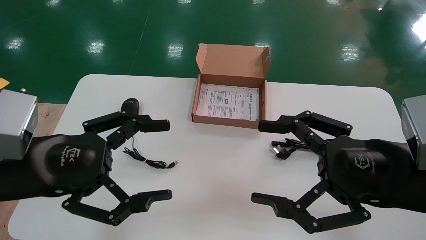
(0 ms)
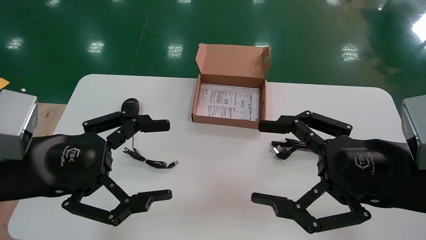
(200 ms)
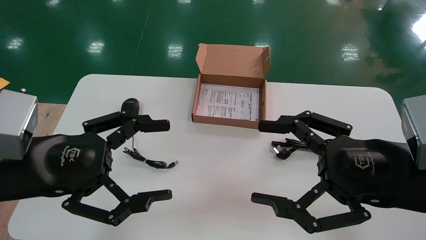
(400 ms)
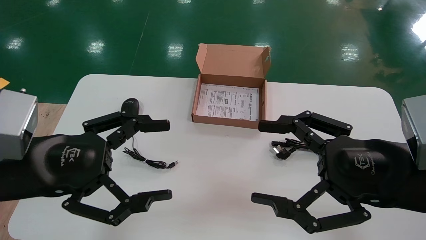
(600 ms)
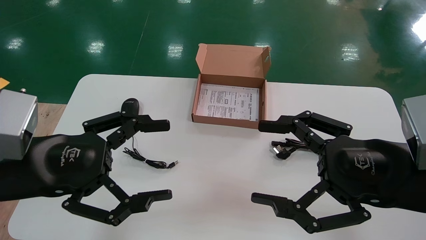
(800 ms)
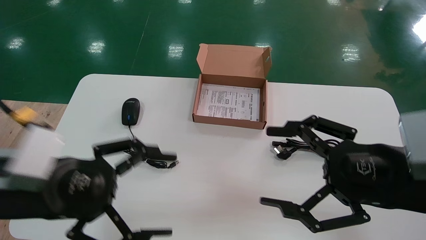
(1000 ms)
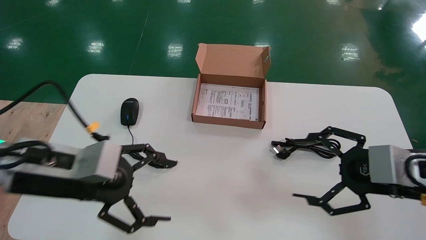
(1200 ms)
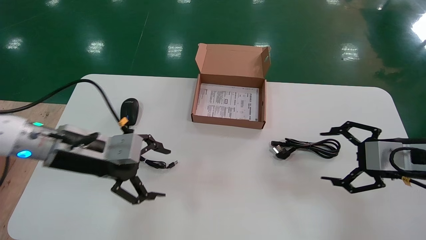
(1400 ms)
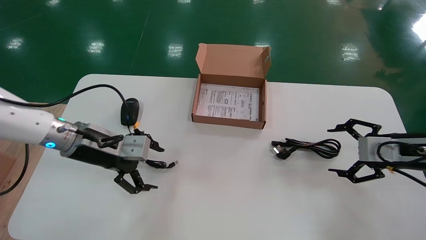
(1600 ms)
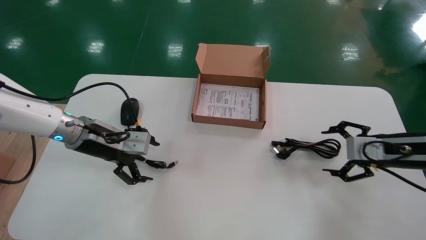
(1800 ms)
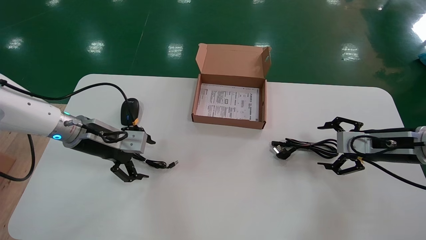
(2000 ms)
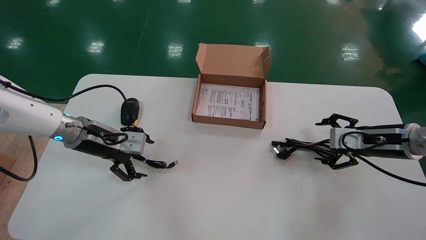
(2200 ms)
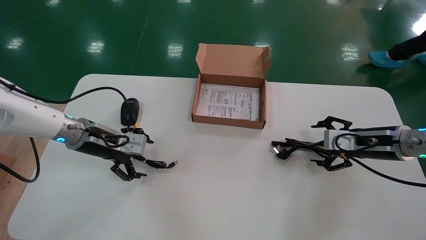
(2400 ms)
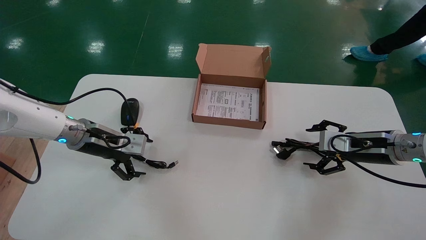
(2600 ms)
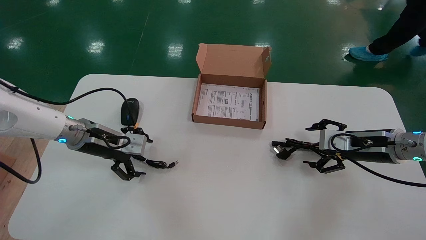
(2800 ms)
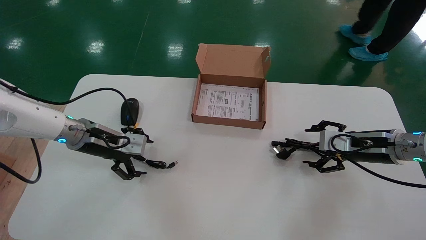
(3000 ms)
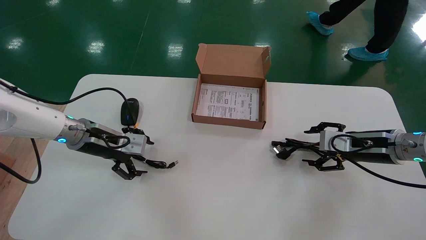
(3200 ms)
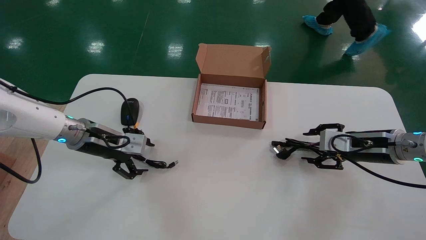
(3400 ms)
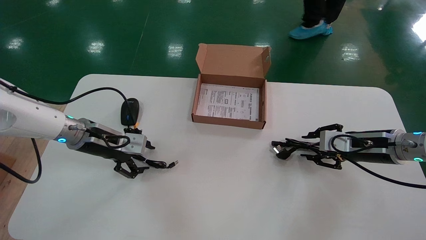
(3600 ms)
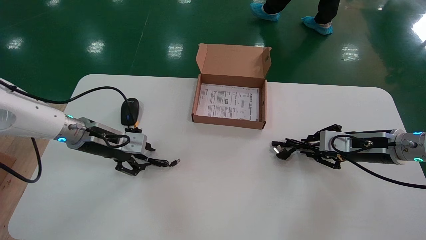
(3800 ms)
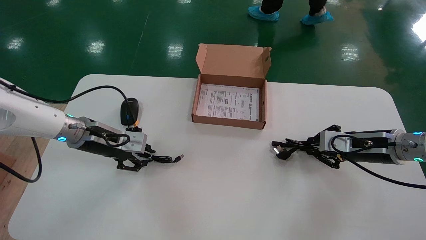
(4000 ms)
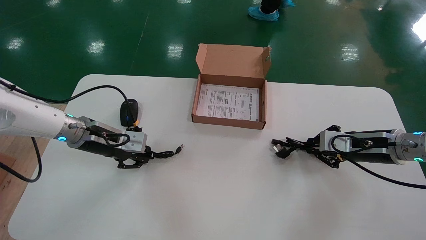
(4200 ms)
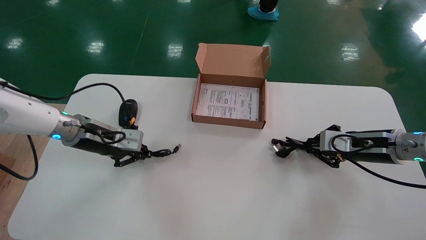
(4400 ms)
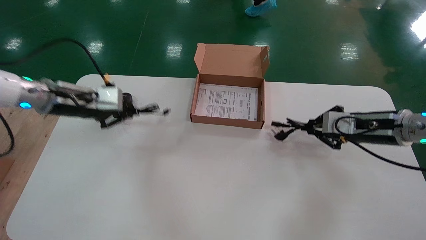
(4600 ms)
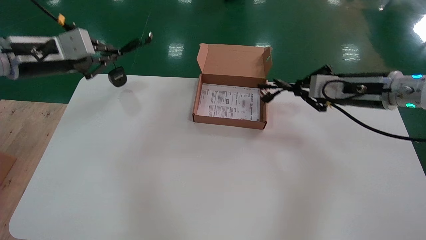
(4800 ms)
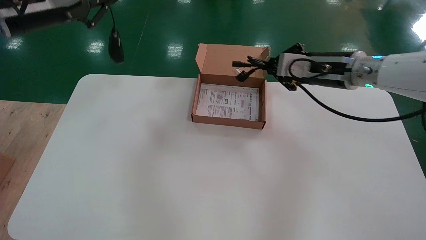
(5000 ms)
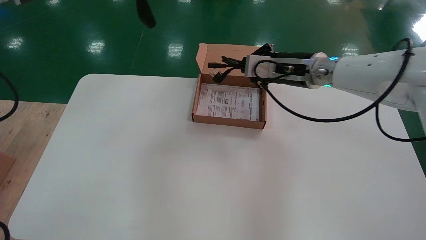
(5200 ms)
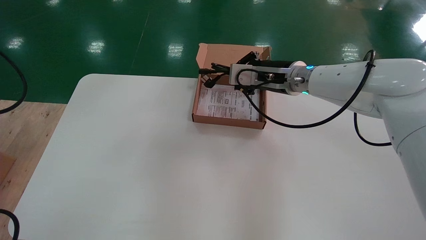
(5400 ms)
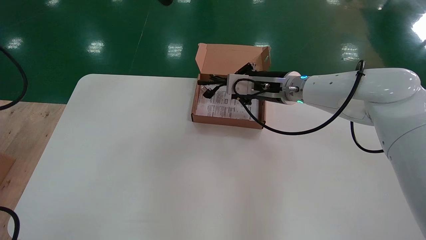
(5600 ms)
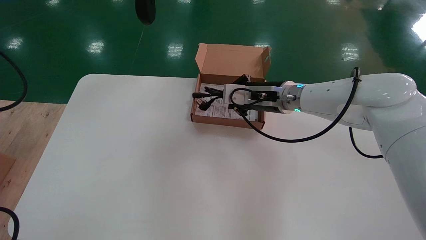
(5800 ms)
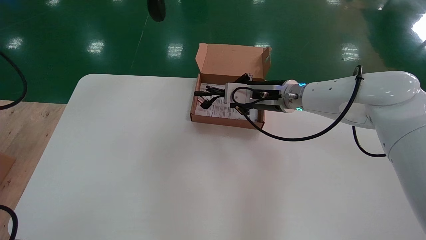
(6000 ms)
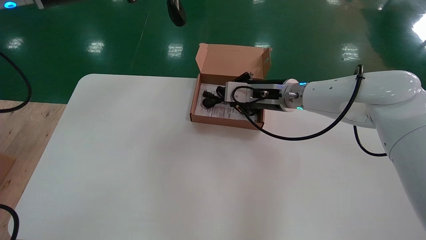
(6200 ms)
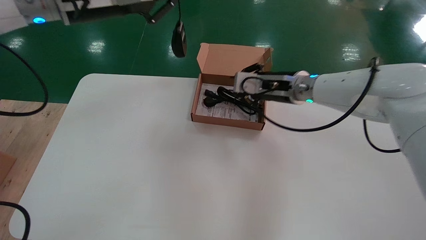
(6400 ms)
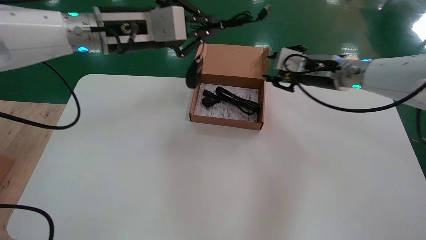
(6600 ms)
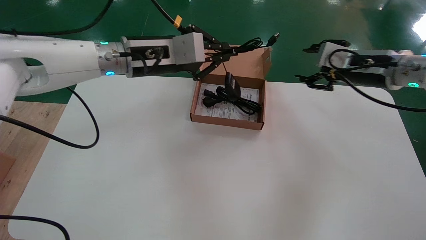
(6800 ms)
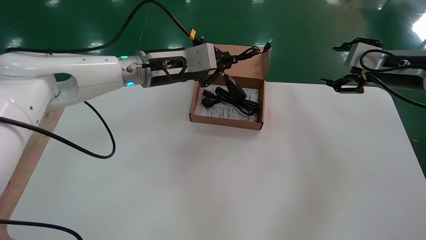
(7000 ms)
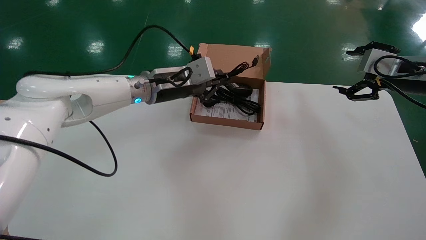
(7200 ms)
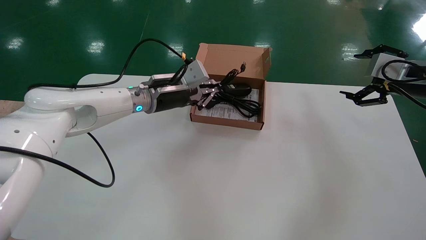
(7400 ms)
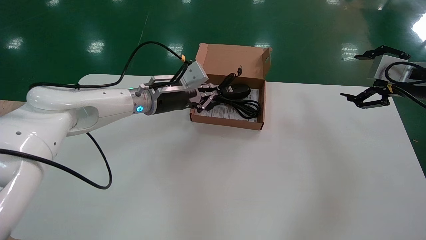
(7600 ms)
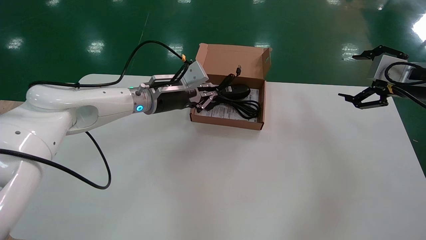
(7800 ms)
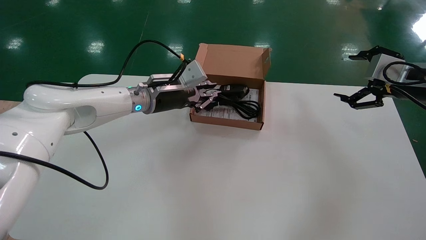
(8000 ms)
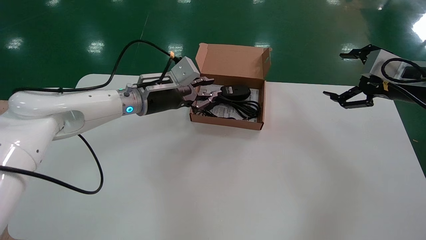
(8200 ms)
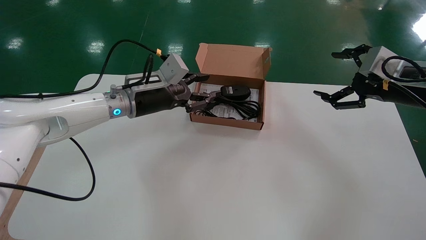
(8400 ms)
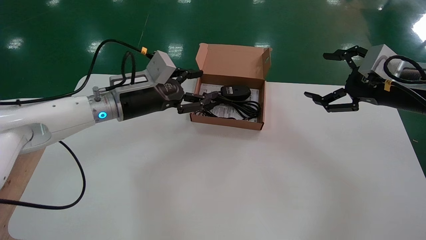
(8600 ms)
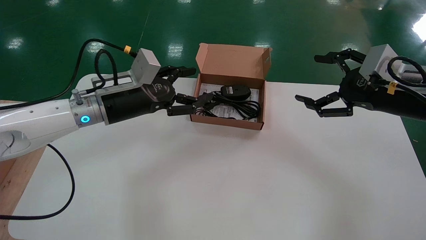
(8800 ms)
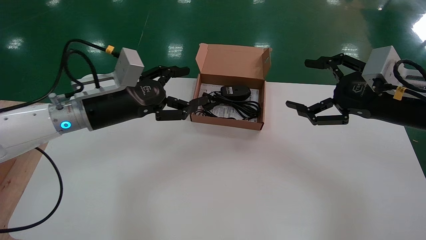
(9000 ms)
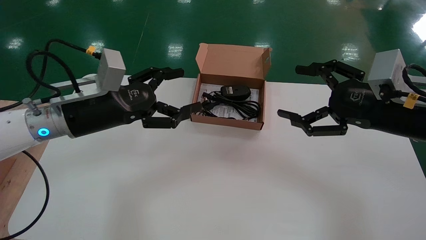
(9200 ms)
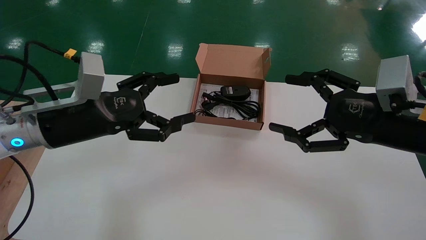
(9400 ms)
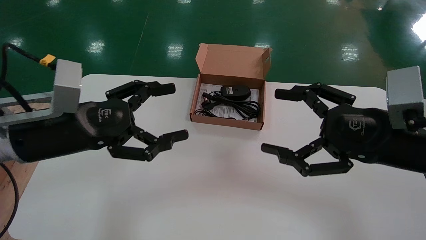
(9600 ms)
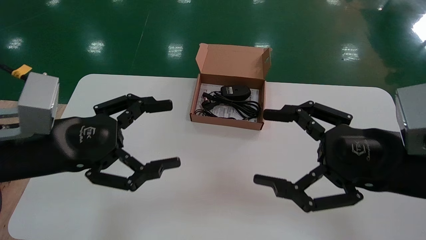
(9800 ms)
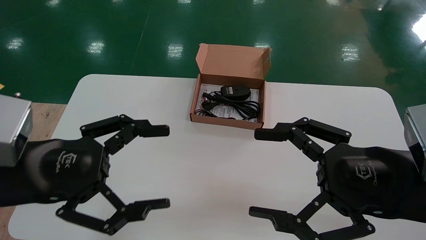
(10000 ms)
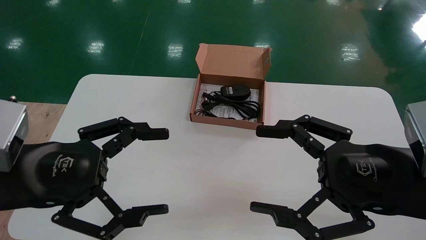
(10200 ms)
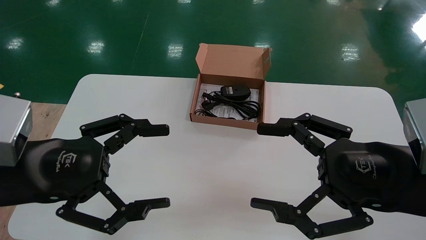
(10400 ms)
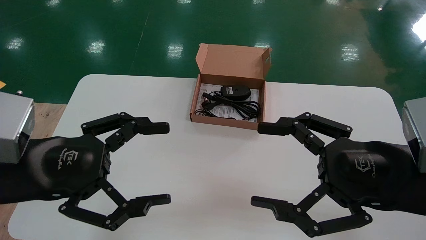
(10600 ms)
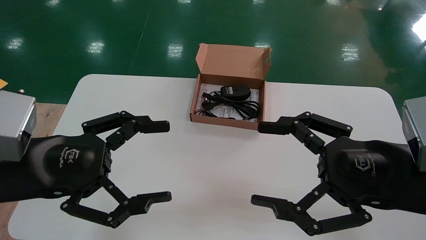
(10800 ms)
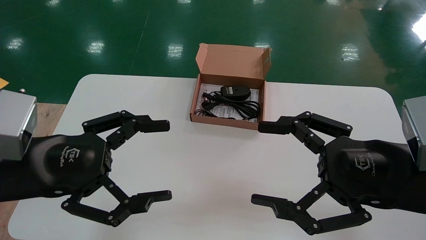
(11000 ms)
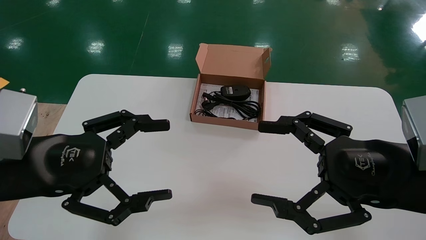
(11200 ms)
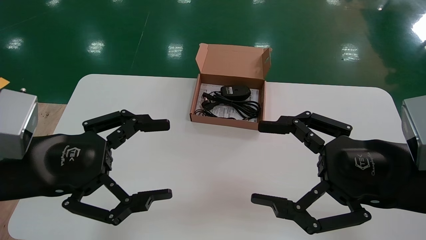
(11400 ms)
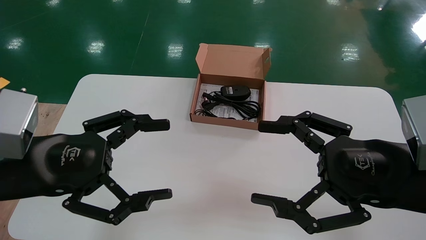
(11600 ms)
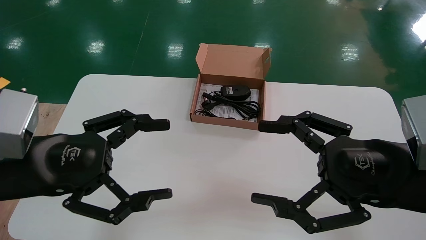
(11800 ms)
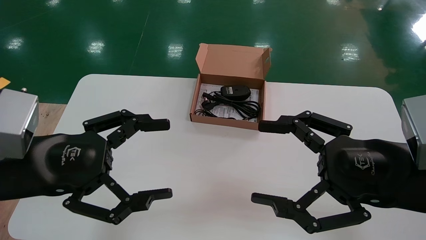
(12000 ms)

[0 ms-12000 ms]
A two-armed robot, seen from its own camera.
Step, 1600 ms to 4200 ms: Simultaneously pick up the mouse and power cord from the accessory packaging area.
Step, 4400 ms to 8200 ms: Place the mouse and power cord into the box.
0 ms to 1600 ms: The right gripper is displaced forward and to the right by roughly 20 cm, while the left gripper is displaced forward by about 15 cm.
1600 ms to 3000 ms: The two grippers go about 5 cm forward.
3000 ms to 4400 ms: The left gripper closes. Meanwhile the right gripper closes.
4400 ms to 6000 ms: The right gripper moves to the left, roughly 20 cm; the left gripper travels upward by approximately 25 cm.
6000 ms to 7600 ms: The left gripper moves downward, forward and to the right, approximately 30 cm, while the right gripper travels to the right by about 25 cm, and opens its fingers.
7600 ms to 9000 ms: The left gripper travels backward and to the left by some 15 cm, and opens. Meanwhile the right gripper shifts approximately 10 cm to the left and backward.
9000 ms to 10400 ms: The left gripper shifts about 20 cm backward; the right gripper goes some 15 cm backward and to the left.
10400 ms to 12000 ms: The two grippers keep their place.

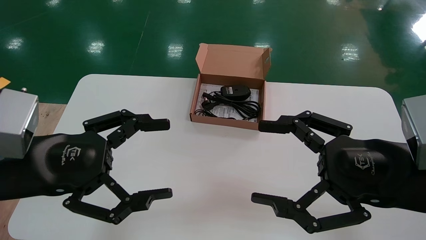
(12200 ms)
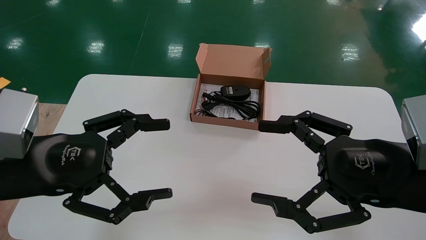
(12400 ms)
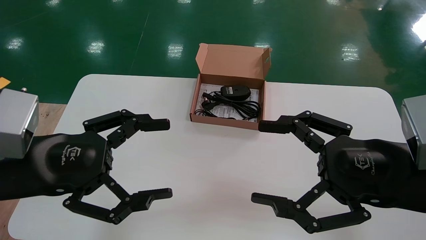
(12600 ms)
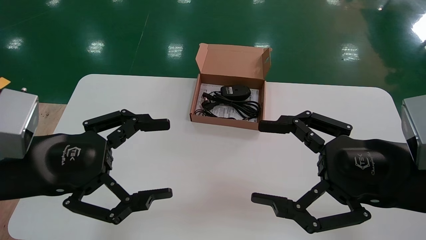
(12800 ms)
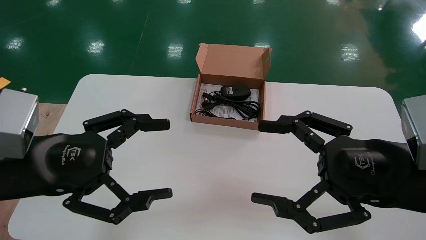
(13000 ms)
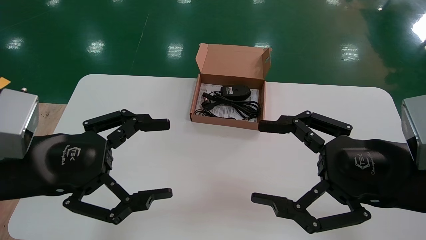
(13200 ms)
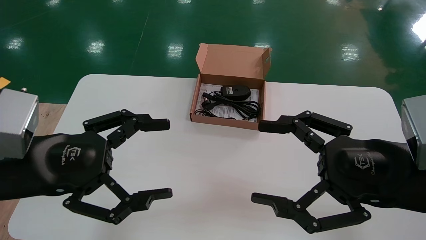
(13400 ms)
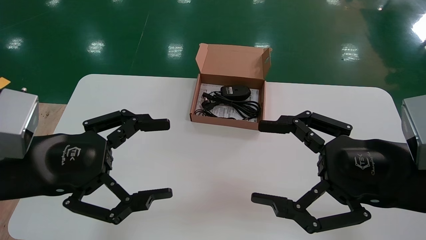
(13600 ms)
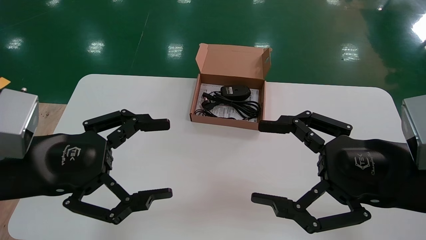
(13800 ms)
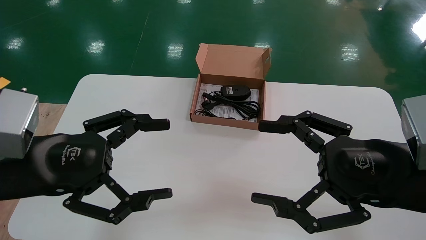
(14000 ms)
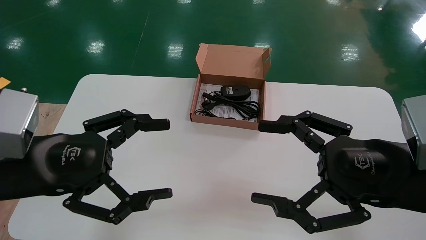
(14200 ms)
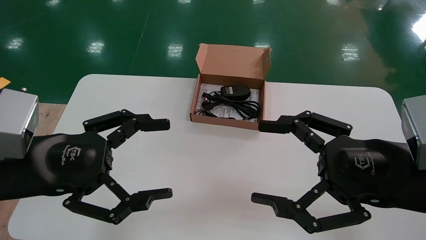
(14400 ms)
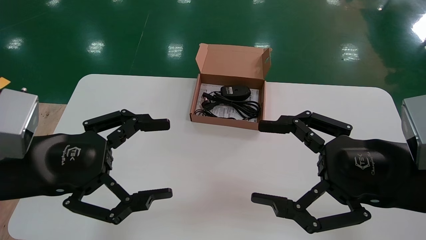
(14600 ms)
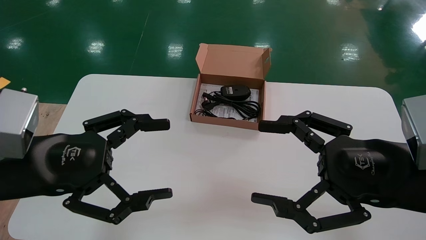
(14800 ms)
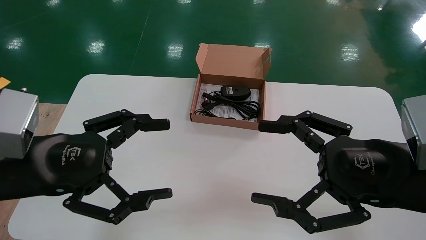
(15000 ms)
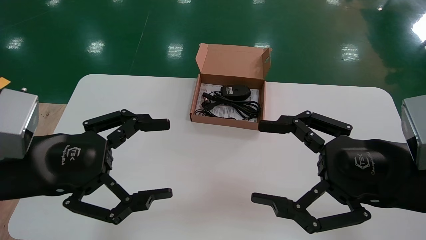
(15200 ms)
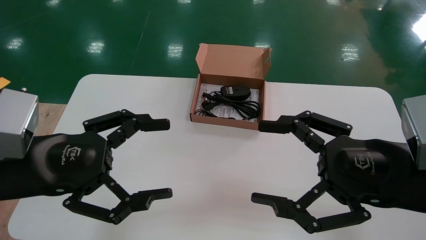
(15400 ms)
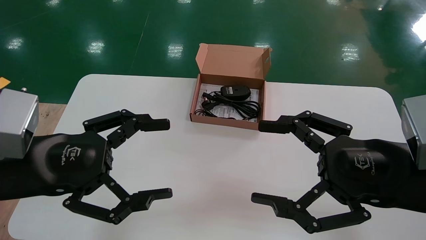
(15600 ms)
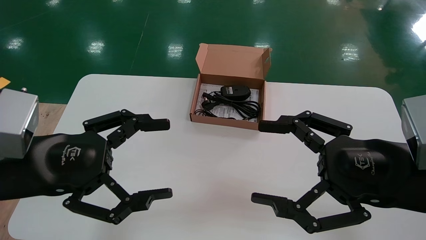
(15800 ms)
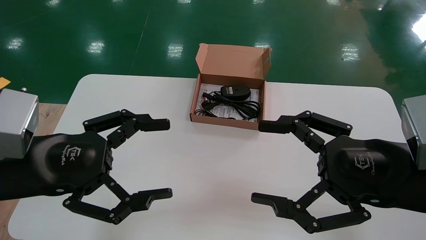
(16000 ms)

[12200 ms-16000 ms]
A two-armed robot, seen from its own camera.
12200 ms to 16000 ms: The two grippers keep their place.
